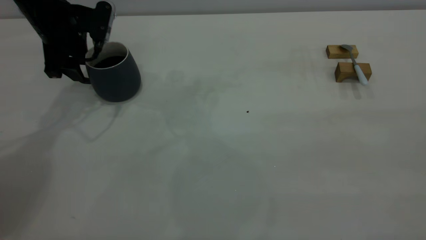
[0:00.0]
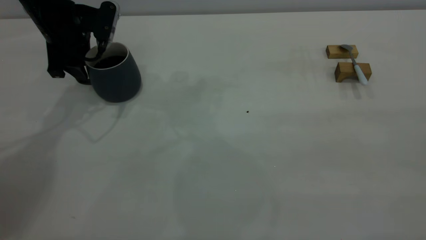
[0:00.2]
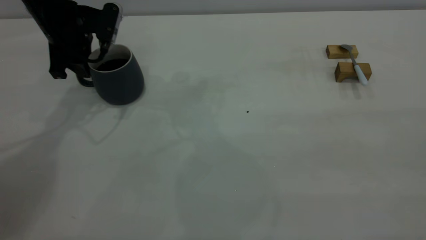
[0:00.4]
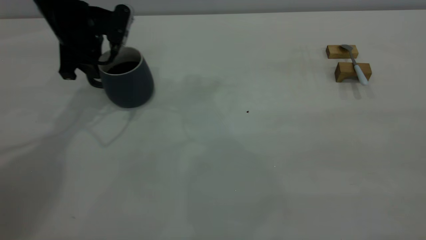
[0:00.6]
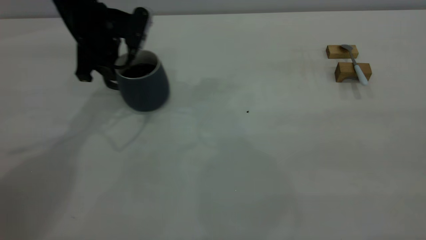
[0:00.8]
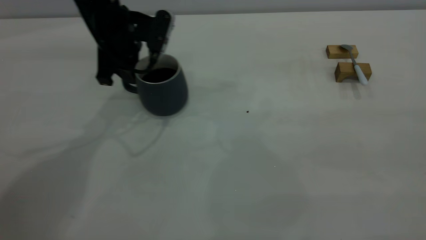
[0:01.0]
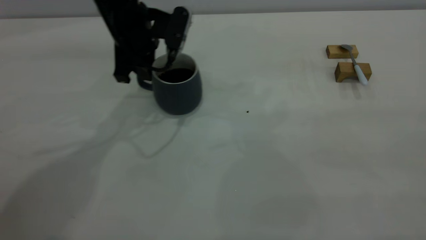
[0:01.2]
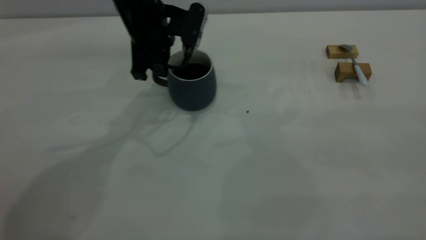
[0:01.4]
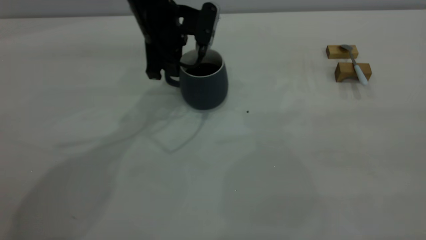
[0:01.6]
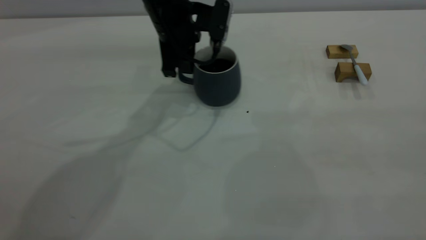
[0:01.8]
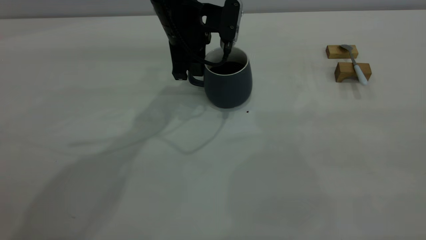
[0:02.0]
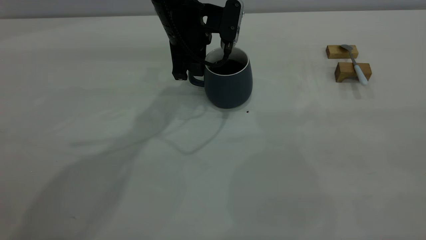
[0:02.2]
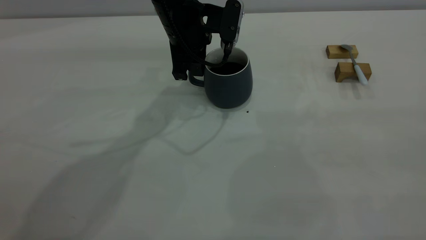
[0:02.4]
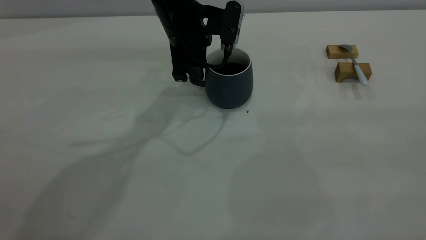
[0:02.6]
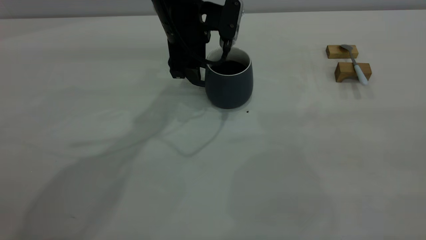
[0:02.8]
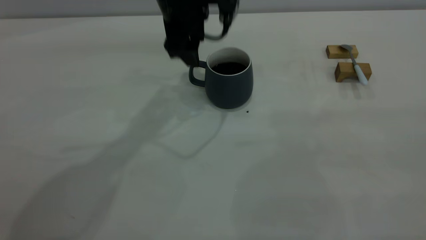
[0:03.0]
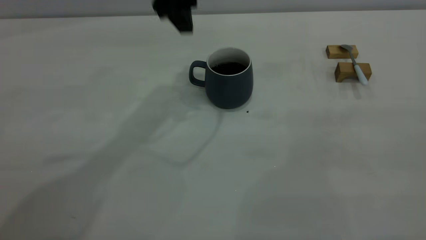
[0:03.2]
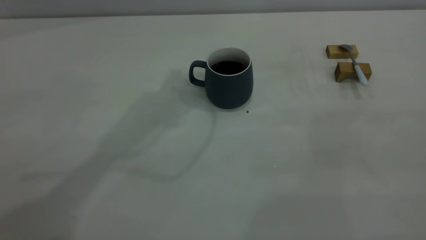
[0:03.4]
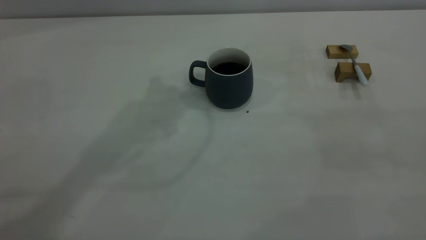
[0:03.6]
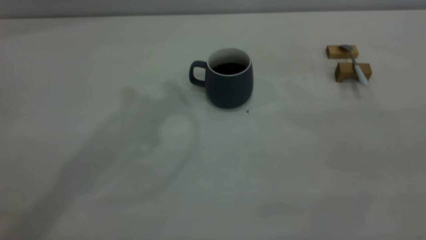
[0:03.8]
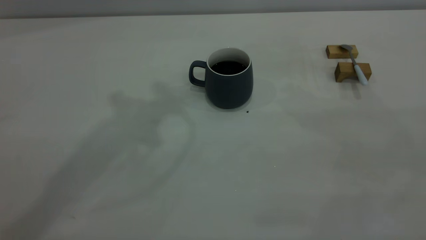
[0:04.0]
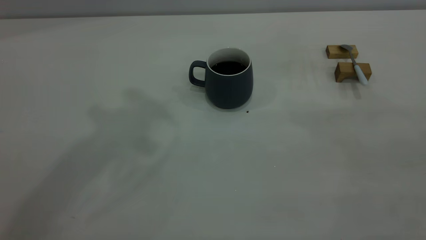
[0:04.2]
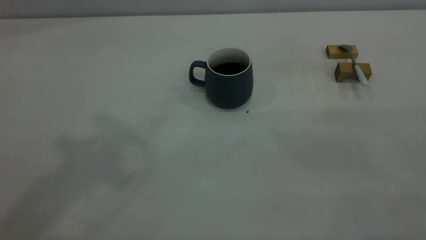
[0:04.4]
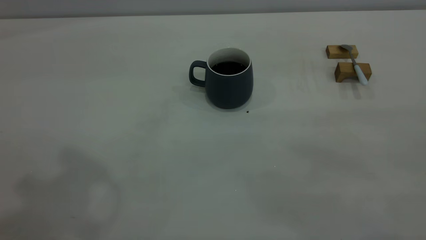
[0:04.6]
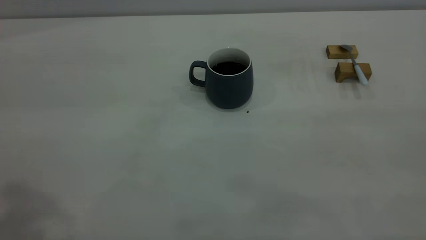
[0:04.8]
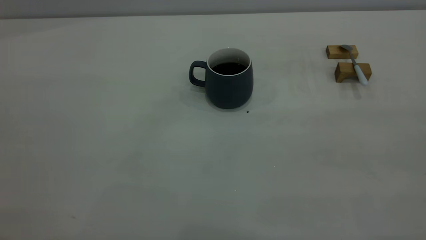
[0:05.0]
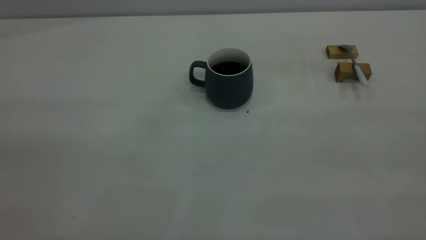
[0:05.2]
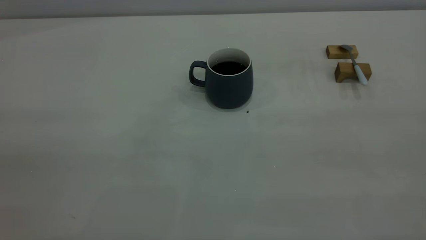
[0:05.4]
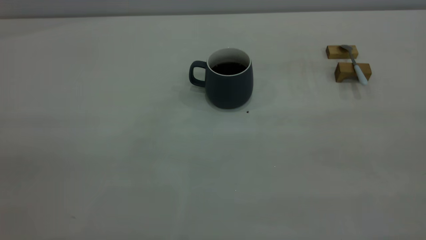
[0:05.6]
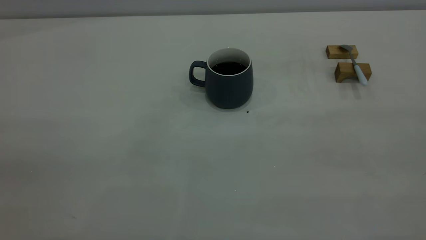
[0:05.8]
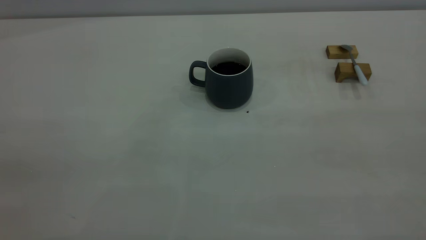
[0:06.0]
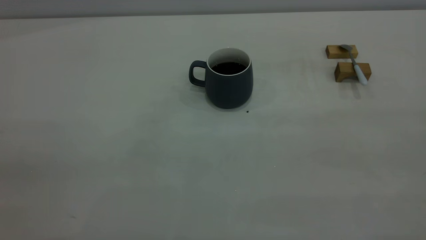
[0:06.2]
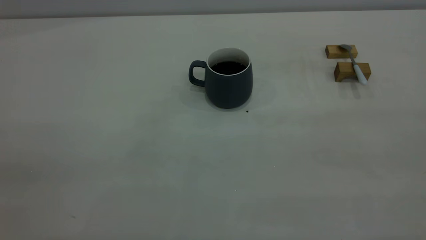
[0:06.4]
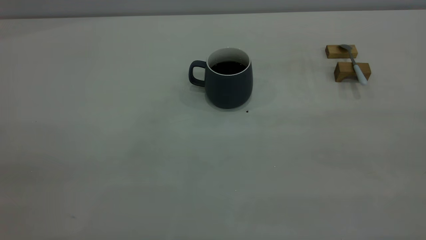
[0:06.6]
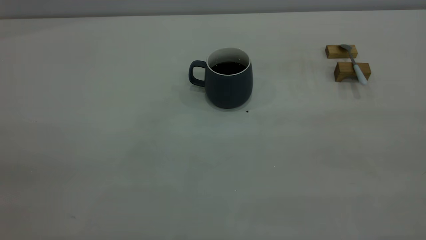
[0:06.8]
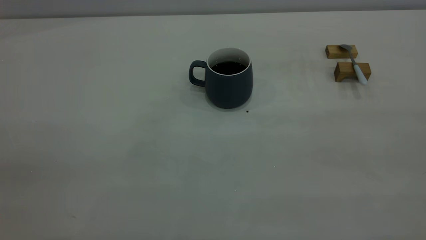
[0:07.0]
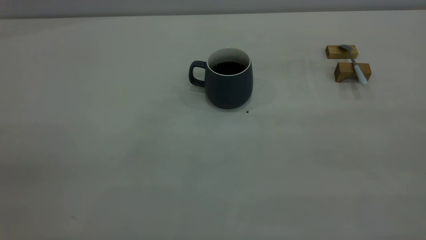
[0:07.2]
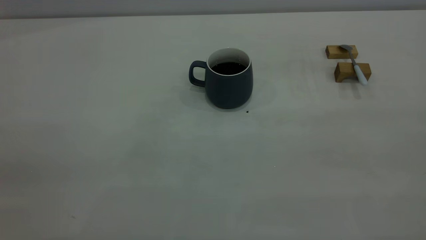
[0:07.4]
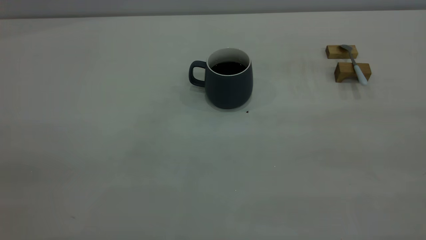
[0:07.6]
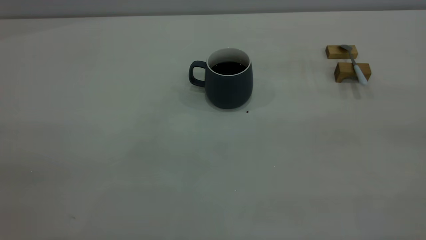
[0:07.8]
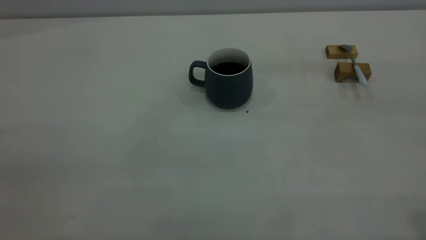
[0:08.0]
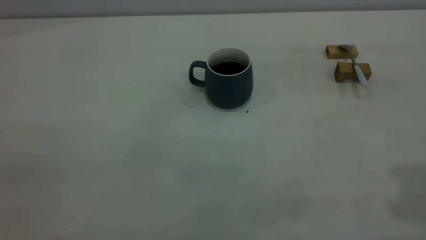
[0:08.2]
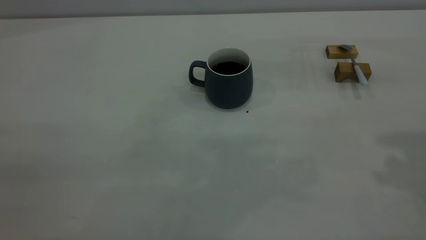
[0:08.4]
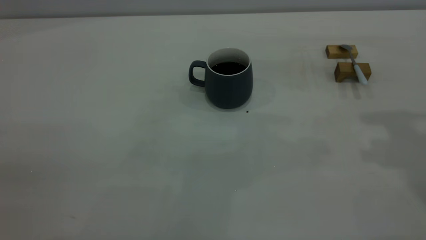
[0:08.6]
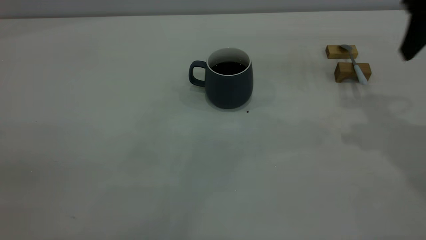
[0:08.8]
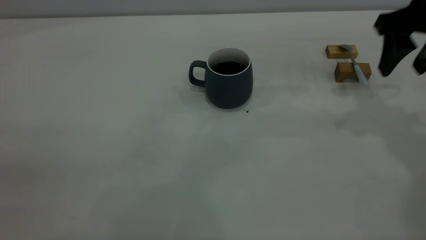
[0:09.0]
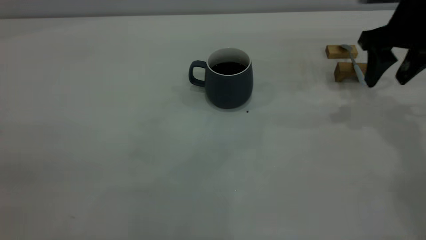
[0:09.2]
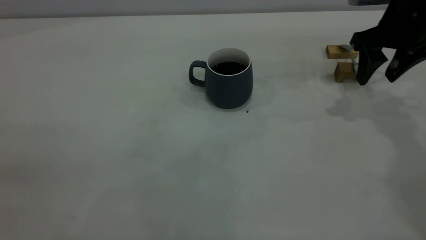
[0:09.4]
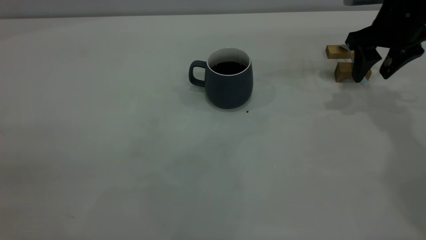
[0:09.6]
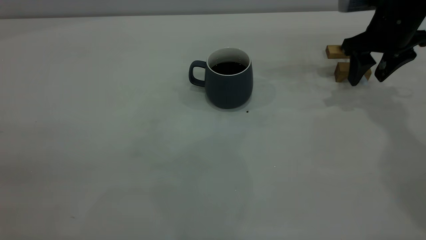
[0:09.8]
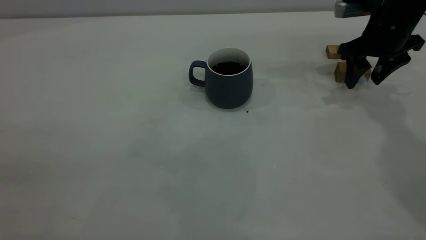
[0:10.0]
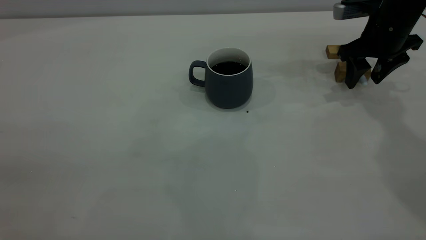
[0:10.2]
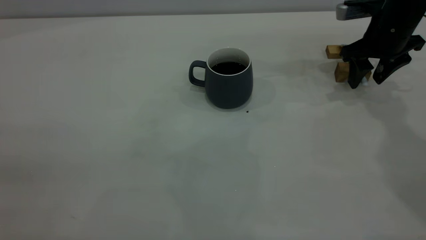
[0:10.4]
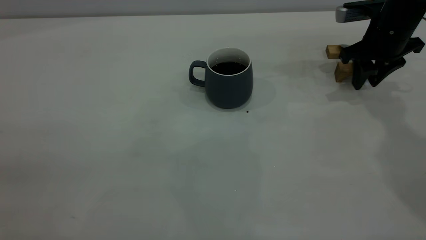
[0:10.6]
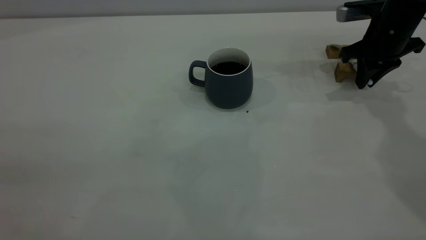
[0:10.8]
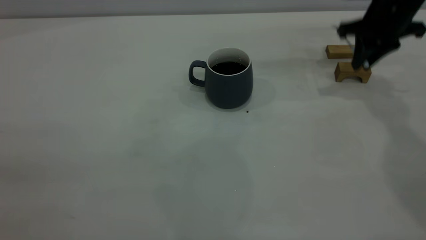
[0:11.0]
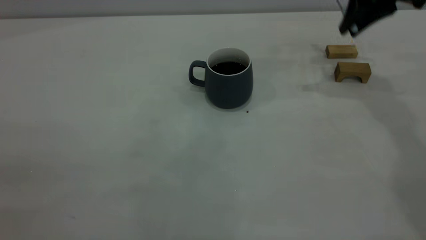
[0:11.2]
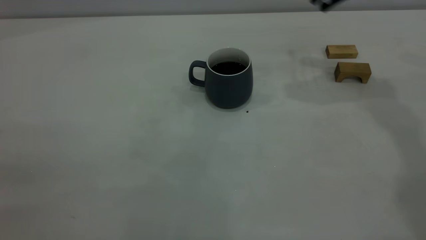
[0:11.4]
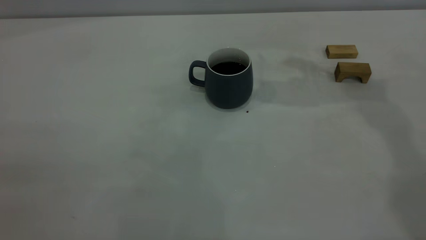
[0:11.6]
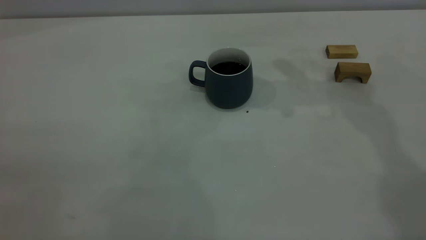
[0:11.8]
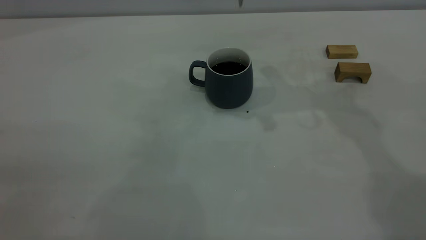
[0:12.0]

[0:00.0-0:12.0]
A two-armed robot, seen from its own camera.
Step, 0:00.0 to 0:03.0: Move the cup with coffee to the center of view.
Step, 0:03.2 to 0:11.0: Pick up the spoon.
0:00.0 to 0:01.6: The left gripper goes approximately 15 cm to the right, and closes its fingers.
0:01.6 to 0:03.0: The left gripper shifts approximately 5 cm upward, and opens up.
0:03.0 to 0:04.4: The left gripper moves upward and backward, about 35 cm, and closes up.
0:06.0 to 0:07.6: Neither gripper changes place.
0:07.6 to 0:09.0: The right gripper goes about 40 cm forward and downward, and opens.
0:09.0 to 0:10.4: The right gripper is displaced downward and forward by roughly 10 cm.
0:10.4 to 0:12.0: The right gripper is displaced upward and to the left by roughly 25 cm, and closes.

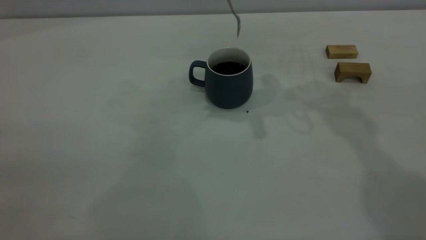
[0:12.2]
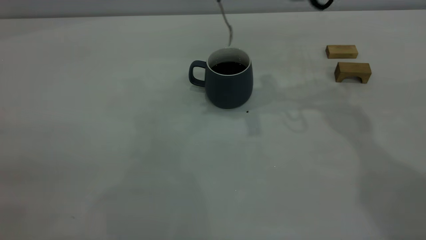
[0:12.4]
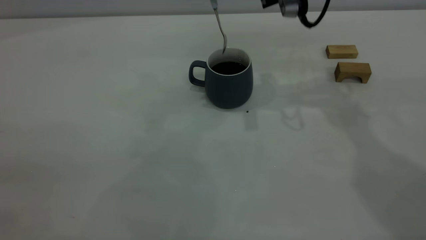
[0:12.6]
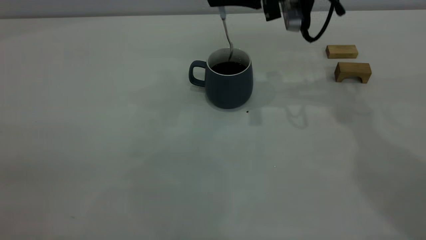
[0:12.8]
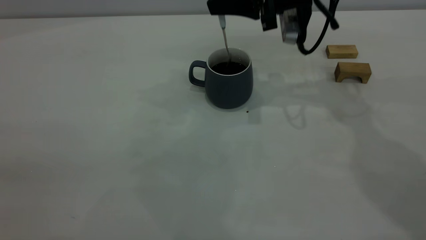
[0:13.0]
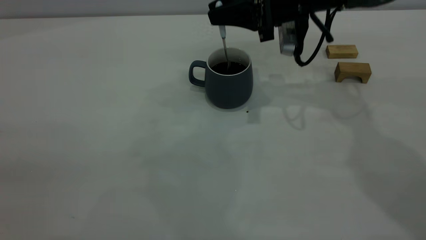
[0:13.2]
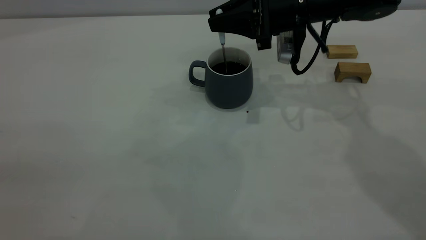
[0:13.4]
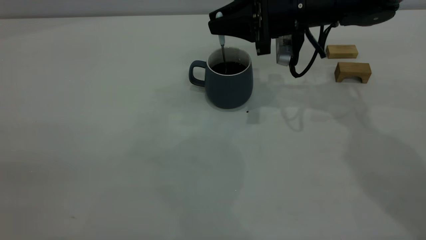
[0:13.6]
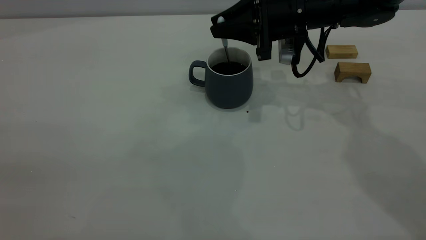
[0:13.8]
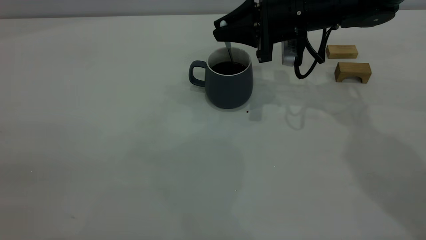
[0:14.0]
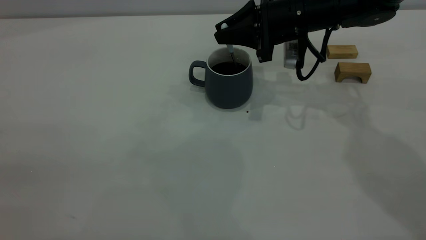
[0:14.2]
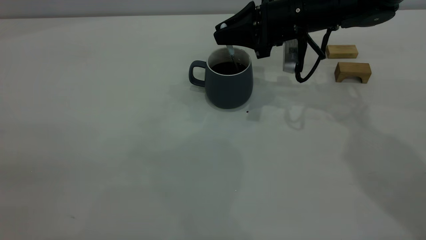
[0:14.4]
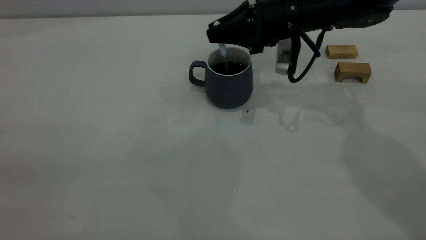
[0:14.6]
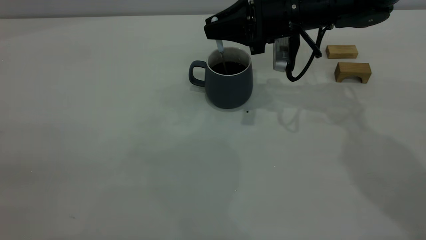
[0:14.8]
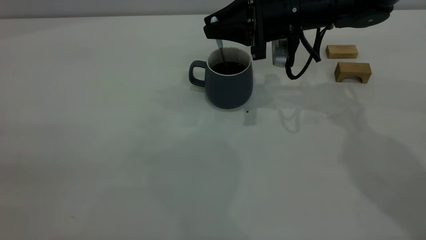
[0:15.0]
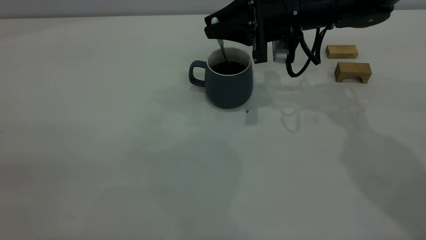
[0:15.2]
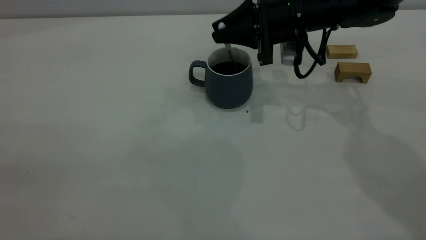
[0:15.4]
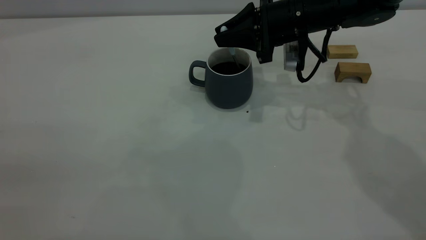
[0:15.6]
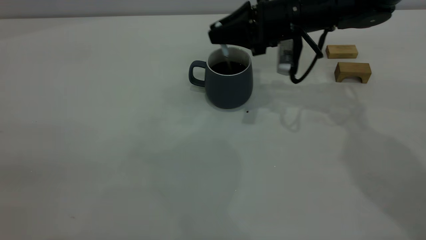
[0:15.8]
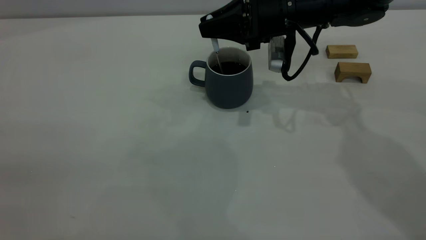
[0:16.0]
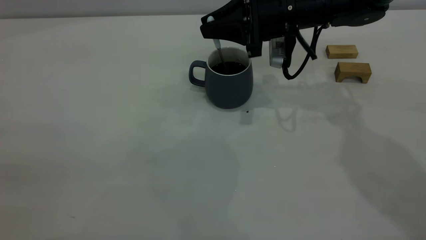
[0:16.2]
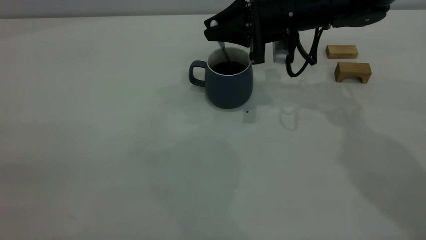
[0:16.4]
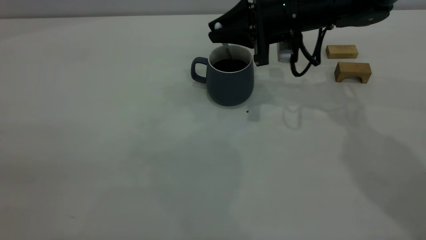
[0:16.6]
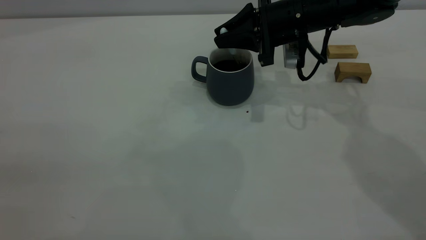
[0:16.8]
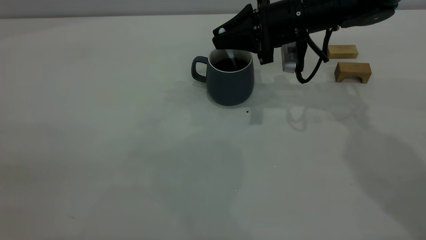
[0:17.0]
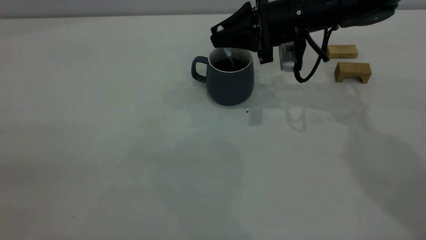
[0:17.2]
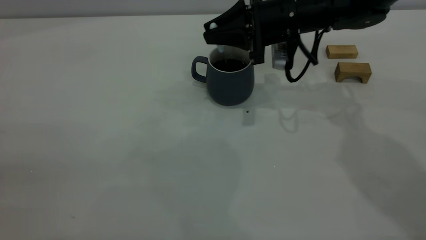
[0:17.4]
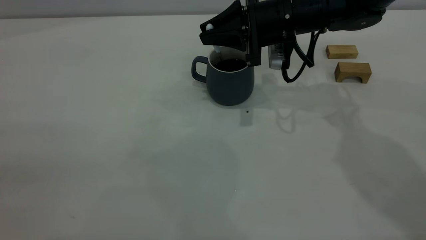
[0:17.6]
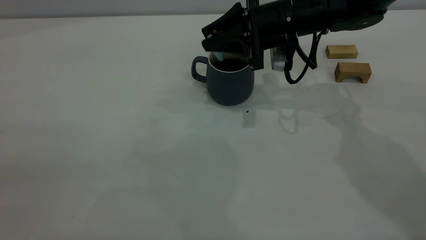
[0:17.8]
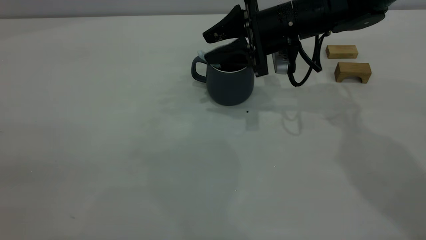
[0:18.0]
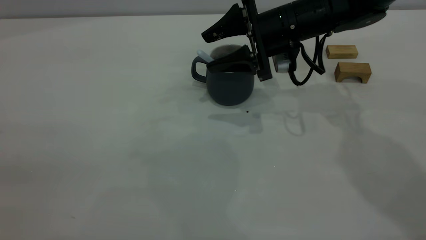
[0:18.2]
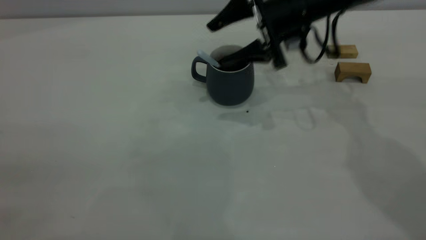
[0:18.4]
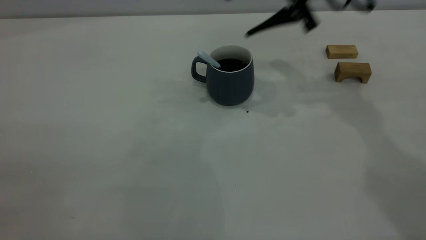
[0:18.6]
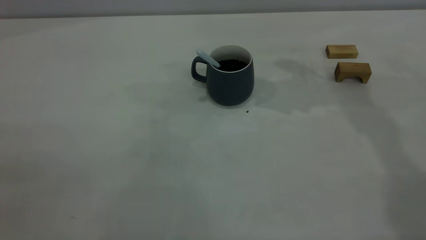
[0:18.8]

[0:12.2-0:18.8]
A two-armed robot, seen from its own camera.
Step, 0:12.2 to 0:18.4: Stir the coffee in the cup.
0:12.2 to 0:13.8: The right gripper moves downward, some 15 cm.
0:13.8 to 0:15.4: There are only small adjustments of the grippers.
0:17.2 to 0:18.8: The right gripper heads upward, covering some 20 cm, and opens up.
